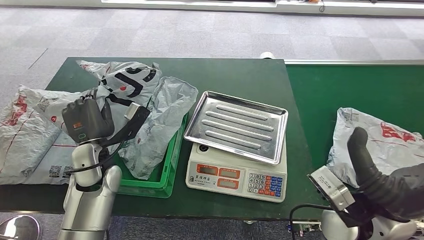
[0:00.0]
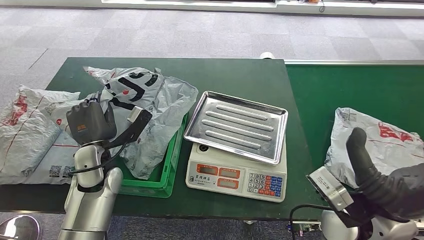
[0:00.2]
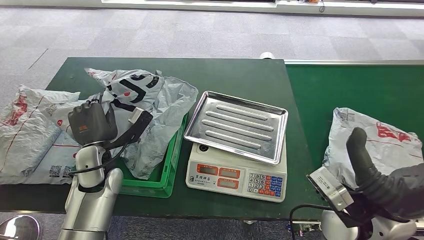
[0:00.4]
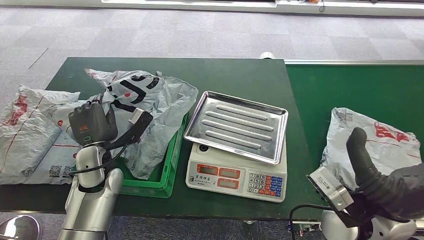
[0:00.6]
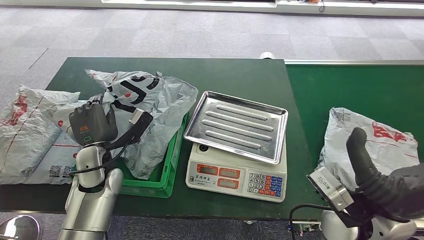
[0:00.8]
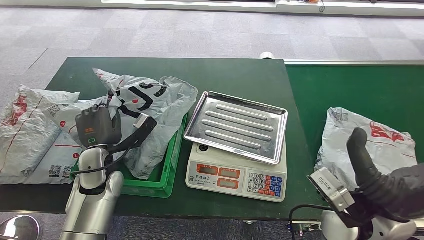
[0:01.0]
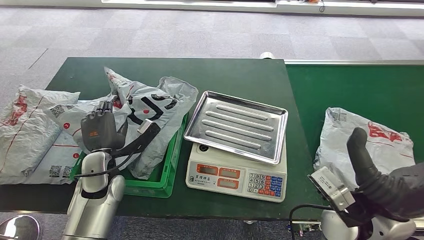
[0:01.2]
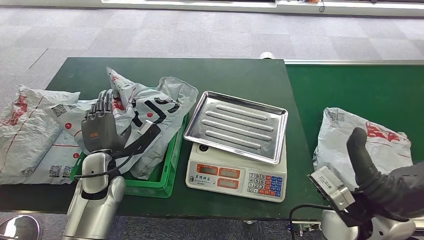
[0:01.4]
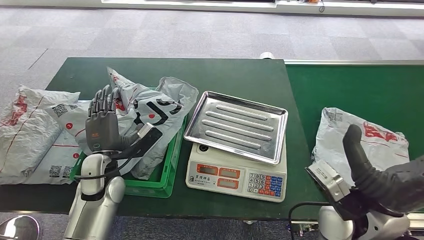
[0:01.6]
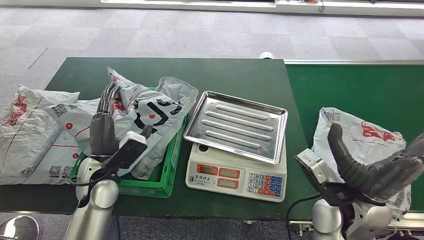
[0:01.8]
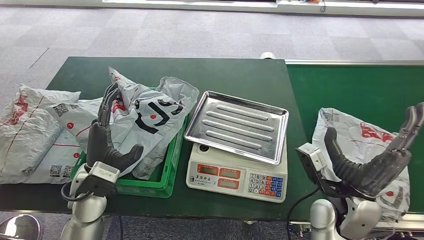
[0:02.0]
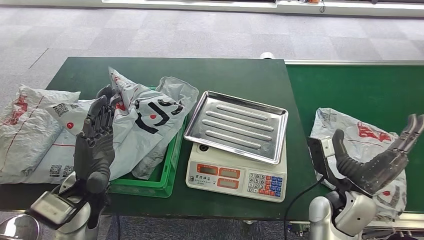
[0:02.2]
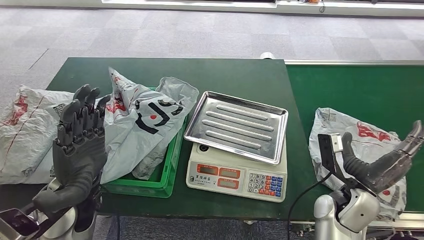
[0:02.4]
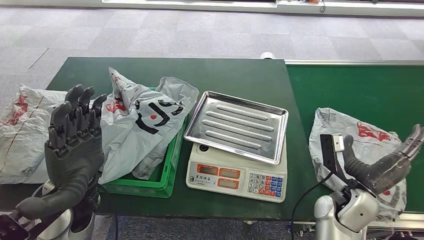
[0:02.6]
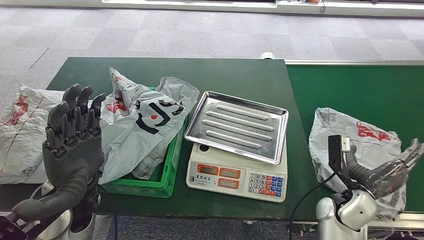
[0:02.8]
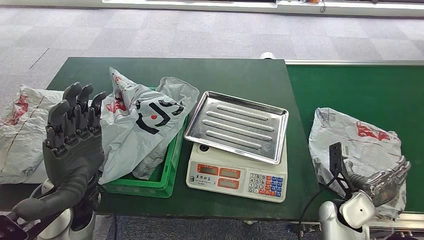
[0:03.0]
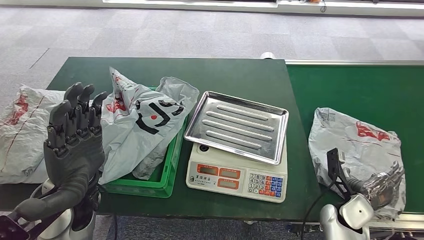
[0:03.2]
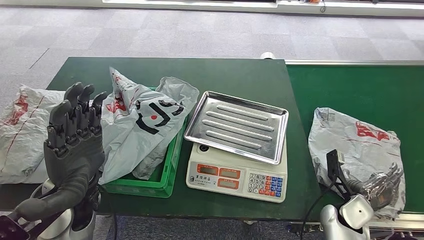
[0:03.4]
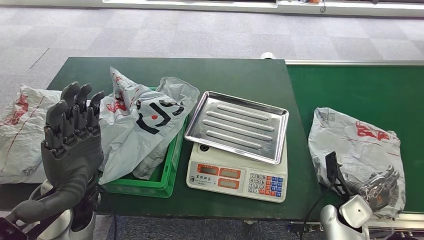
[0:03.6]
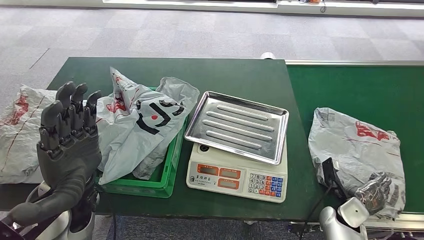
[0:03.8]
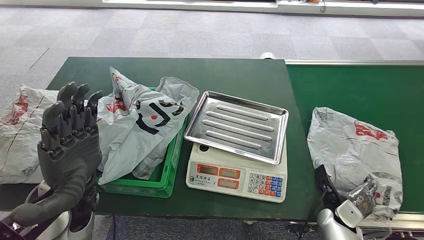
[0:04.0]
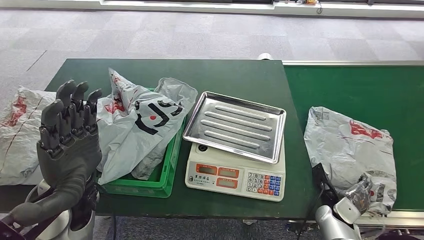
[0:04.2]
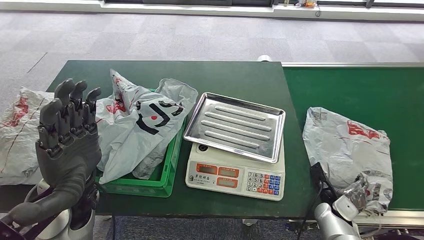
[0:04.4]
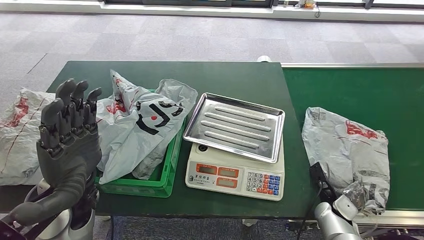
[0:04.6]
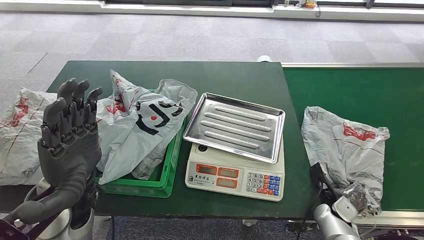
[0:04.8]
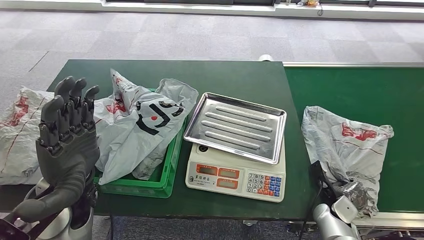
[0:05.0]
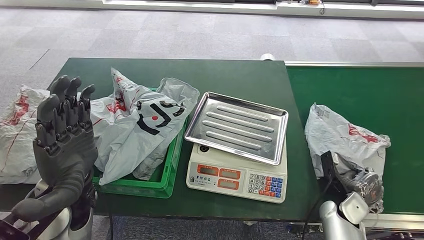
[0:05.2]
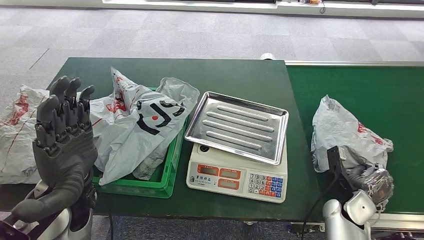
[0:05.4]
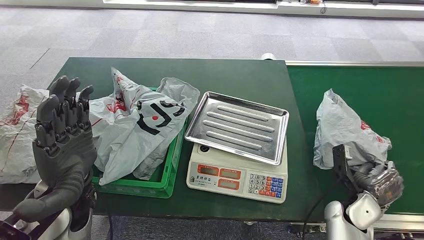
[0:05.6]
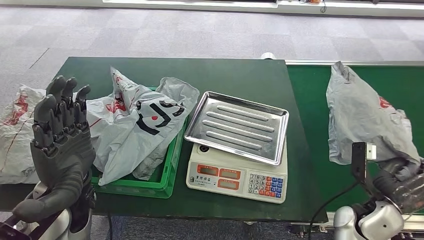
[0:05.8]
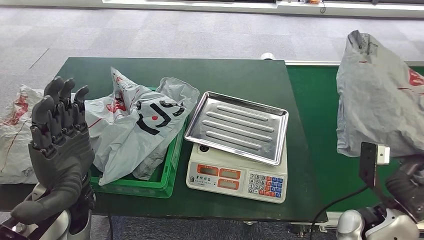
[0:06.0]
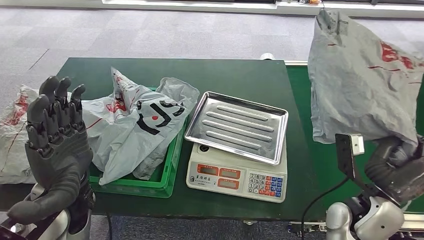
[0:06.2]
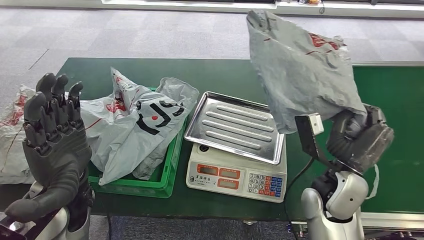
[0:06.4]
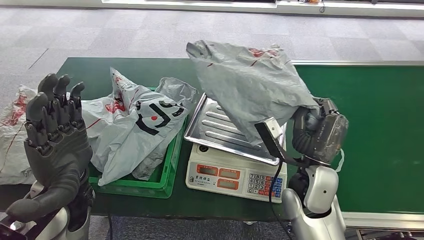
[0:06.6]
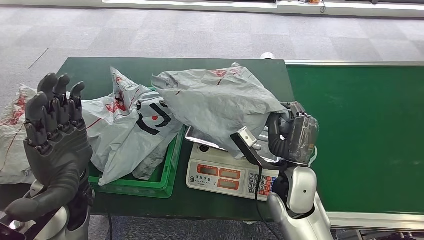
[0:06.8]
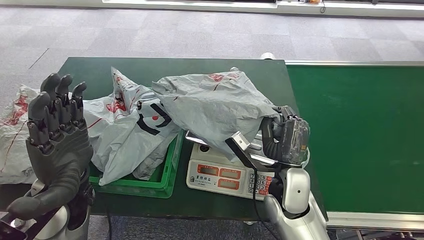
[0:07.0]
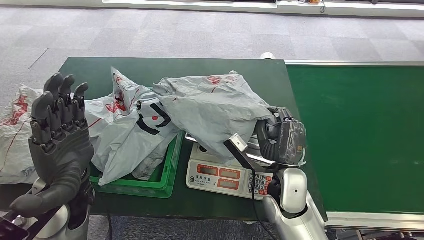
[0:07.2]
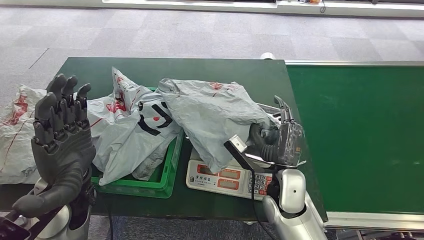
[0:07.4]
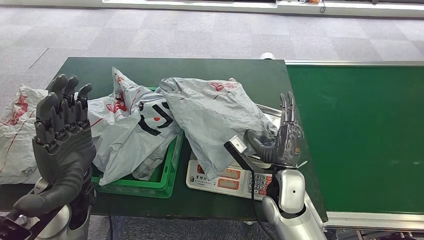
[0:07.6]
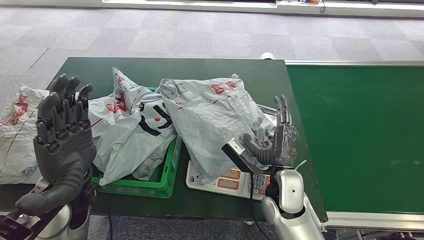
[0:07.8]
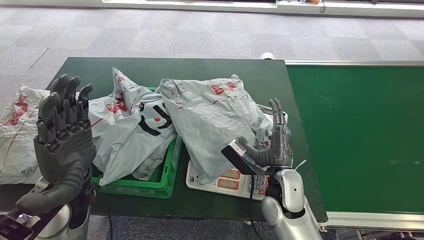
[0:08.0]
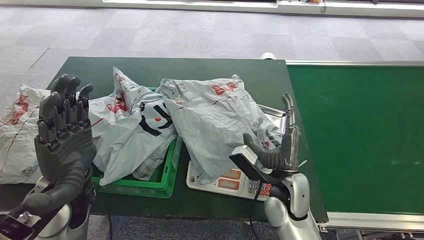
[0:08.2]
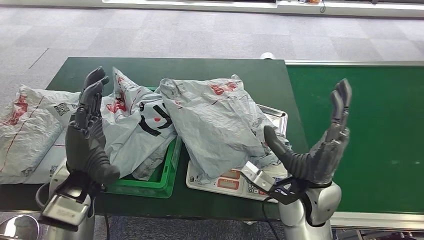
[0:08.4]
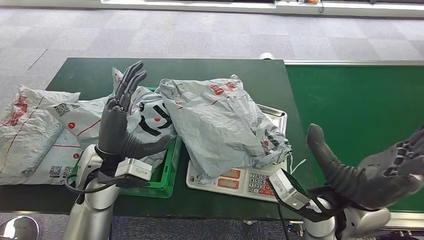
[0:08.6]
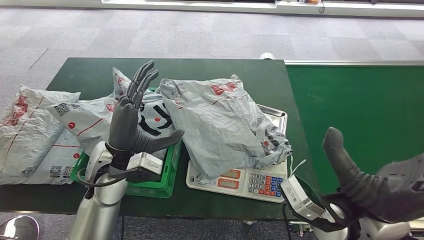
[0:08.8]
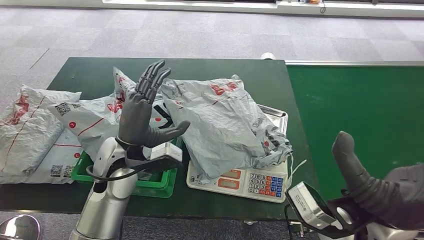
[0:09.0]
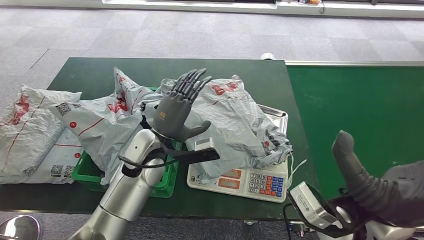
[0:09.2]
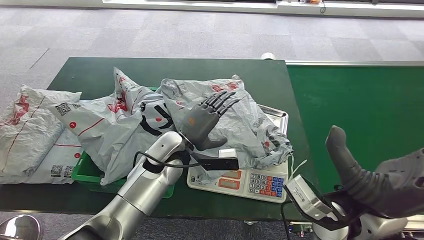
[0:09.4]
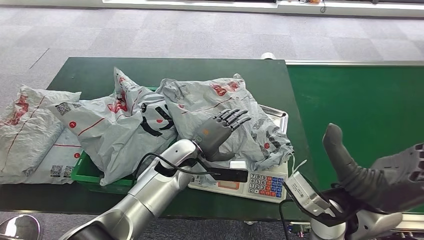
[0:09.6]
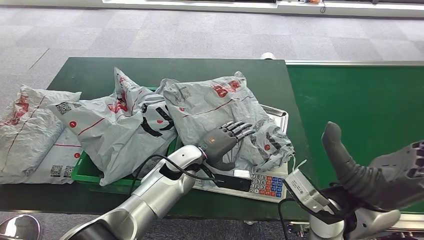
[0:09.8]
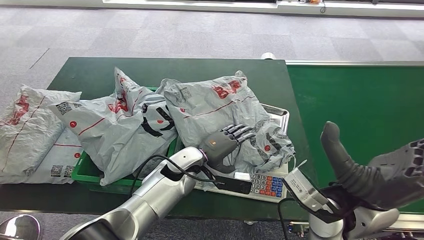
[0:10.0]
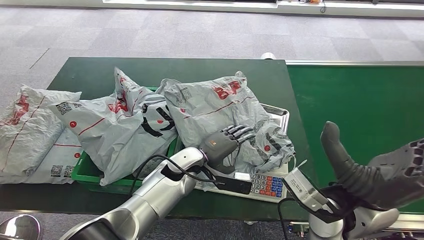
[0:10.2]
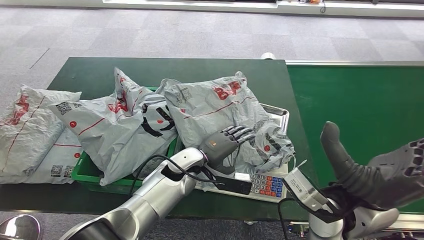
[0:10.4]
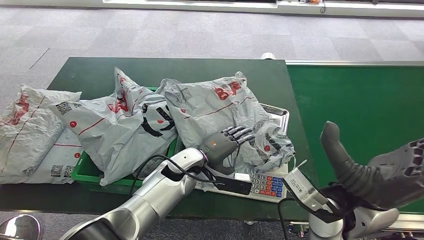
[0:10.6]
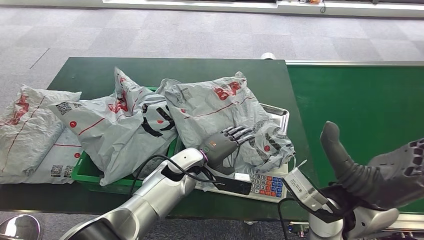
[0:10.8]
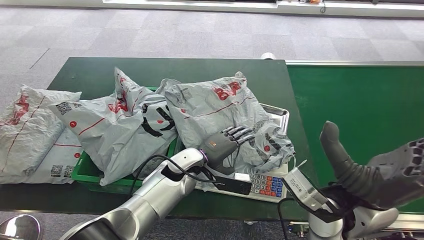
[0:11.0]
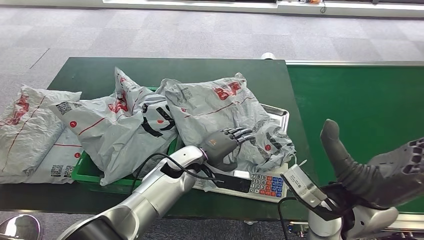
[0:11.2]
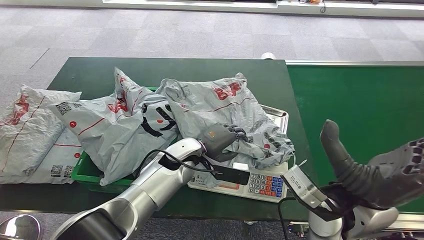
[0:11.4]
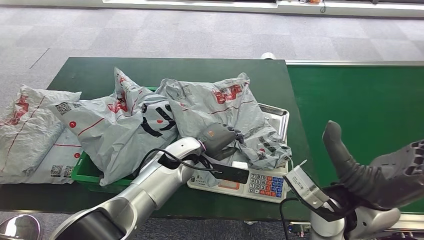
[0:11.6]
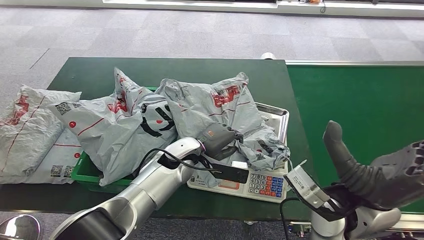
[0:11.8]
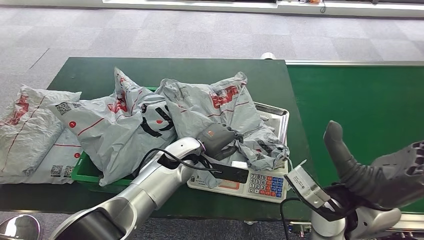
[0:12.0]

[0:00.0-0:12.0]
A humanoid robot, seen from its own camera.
Step, 0:00.0 to 0:03.4: Place the parcel into the delivery box.
Step, 0:04.8 to 0:05.8: Pick up the parcel from the conveyor belt.
Step, 0:06.0 to 0:08.8: Place the parcel onto the inbound machine.
0:00.0 to 0:01.6: The hands stay close to where they were, moving slightly.
0:10.4 to 0:12.0: The hands make only small movements.

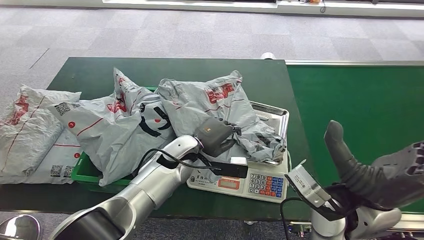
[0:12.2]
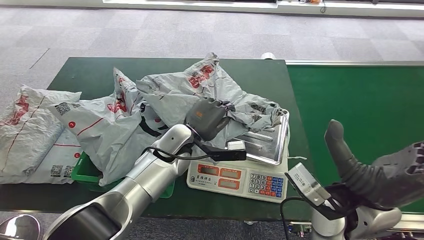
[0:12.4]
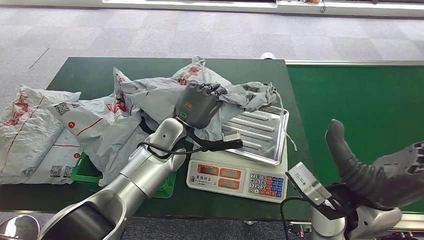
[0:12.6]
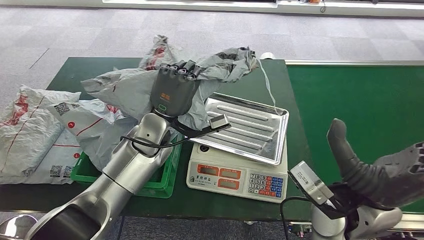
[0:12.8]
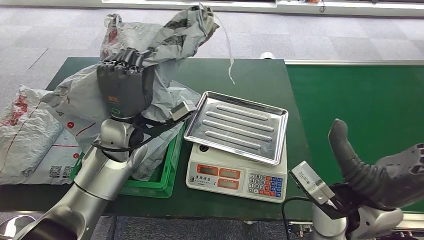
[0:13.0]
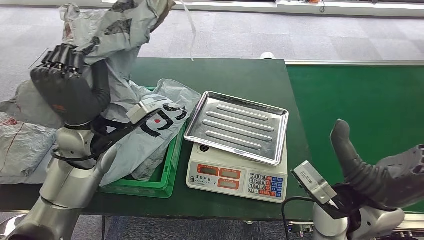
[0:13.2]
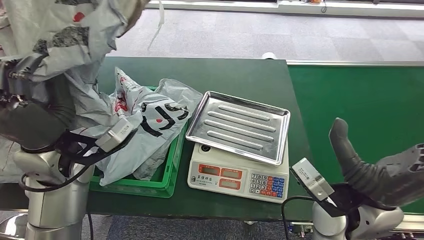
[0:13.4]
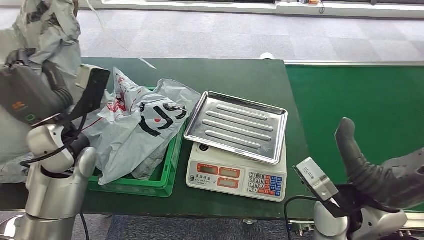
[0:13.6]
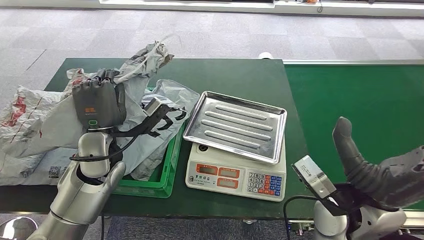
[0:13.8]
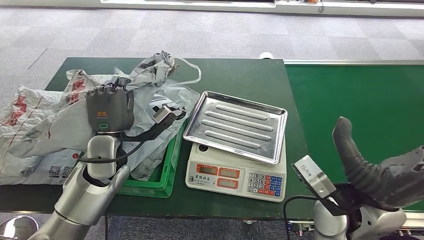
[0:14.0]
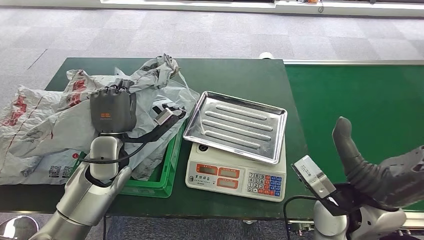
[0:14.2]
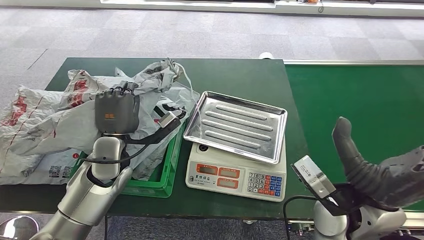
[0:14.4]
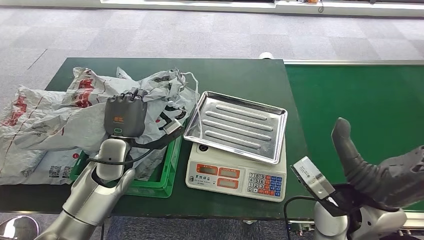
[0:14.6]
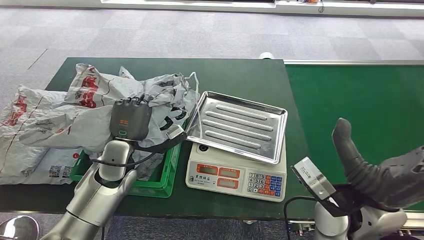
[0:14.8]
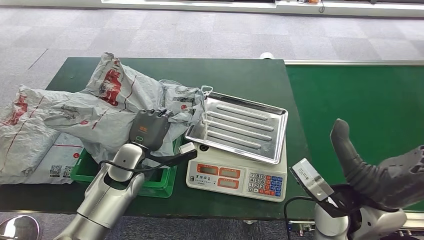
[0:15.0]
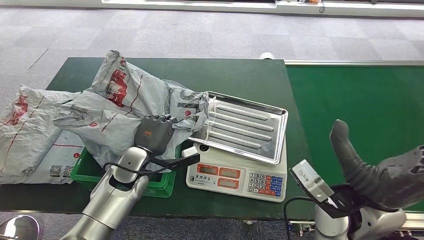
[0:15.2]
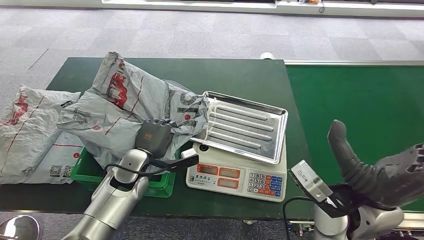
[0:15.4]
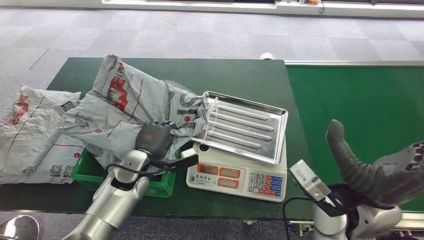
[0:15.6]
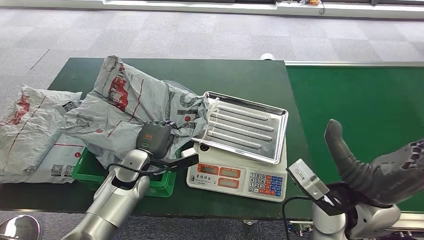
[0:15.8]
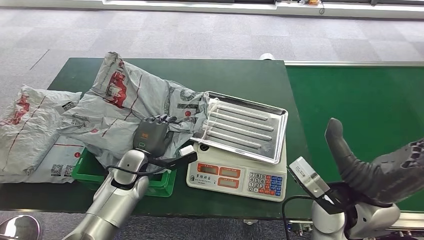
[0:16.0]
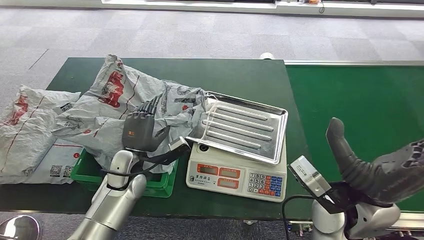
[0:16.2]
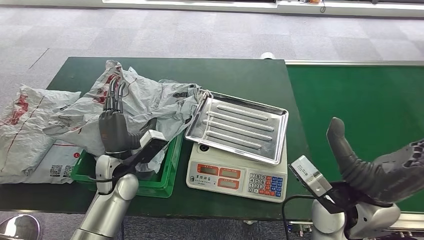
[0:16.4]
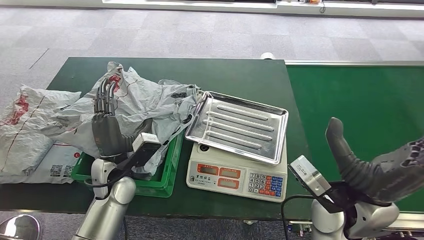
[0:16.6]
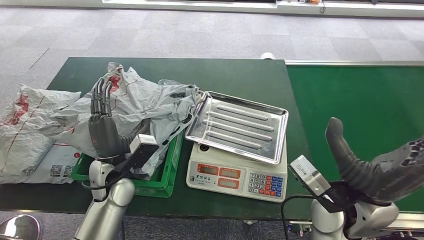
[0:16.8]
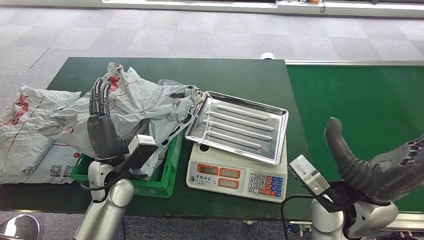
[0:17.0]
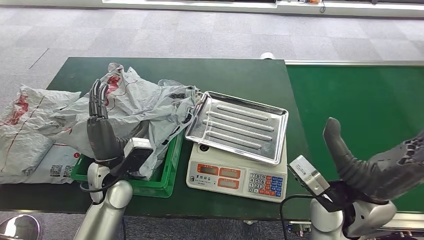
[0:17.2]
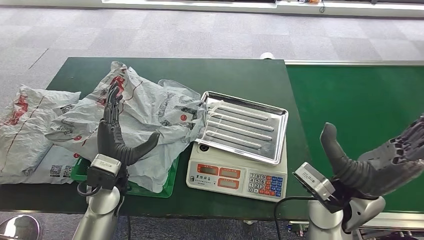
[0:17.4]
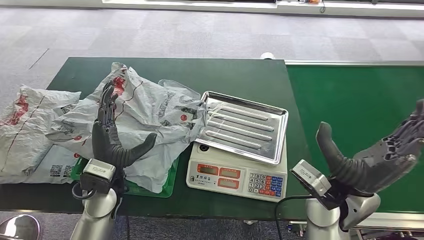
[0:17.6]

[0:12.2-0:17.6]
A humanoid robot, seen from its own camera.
Step, 0:13.6 to 0:17.4: Place the parcel into the delivery box.
0:16.2 to 0:17.6: The left hand is displaced upward by approximately 5 cm.
